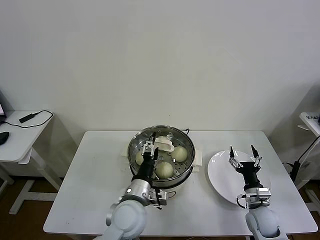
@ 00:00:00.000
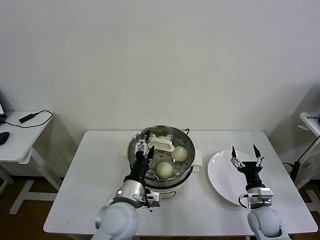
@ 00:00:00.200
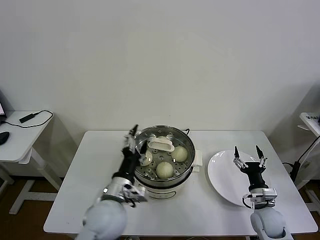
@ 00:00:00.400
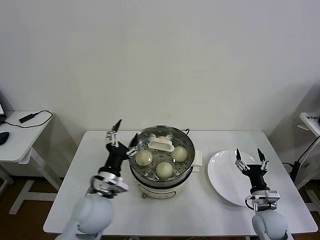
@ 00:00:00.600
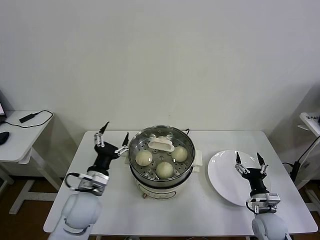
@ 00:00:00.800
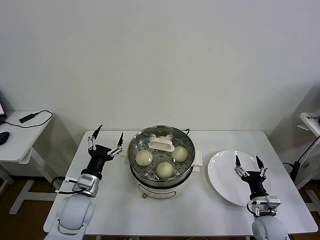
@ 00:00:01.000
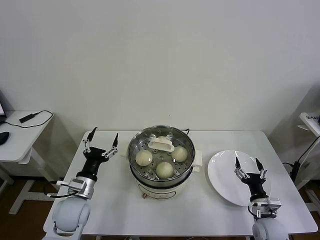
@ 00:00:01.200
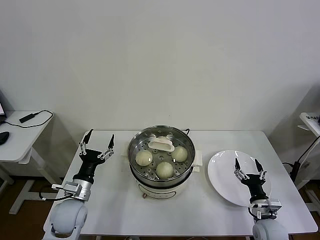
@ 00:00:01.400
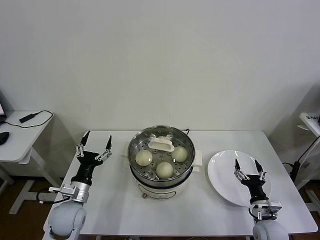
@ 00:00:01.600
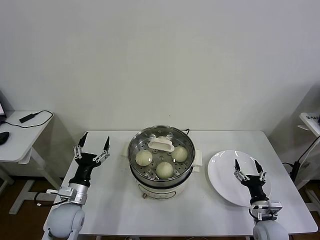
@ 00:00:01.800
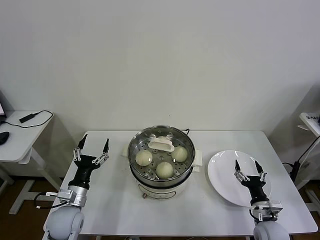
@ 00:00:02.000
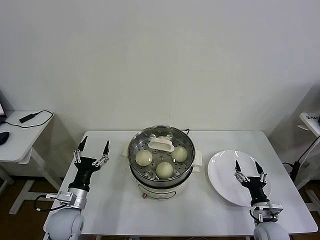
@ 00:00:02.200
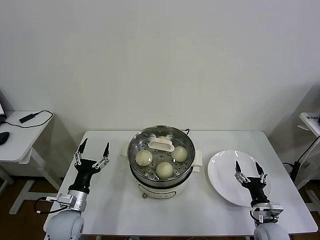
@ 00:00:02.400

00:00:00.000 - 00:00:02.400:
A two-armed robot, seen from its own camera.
Task of the whole recording: take steamed baozi put them in steamer then cover it.
00:00:00.000 - 00:00:01.200: The left gripper moves to the left, roughly 20 cm.
00:00:01.200 - 00:00:02.400: The left gripper shifts by some 5 cm.
